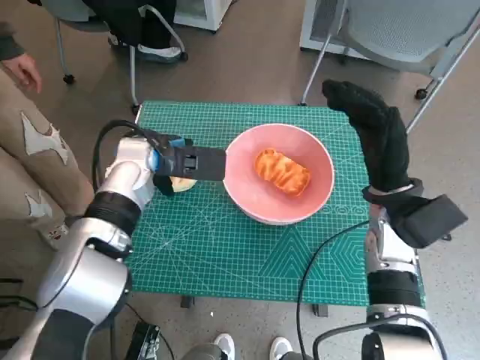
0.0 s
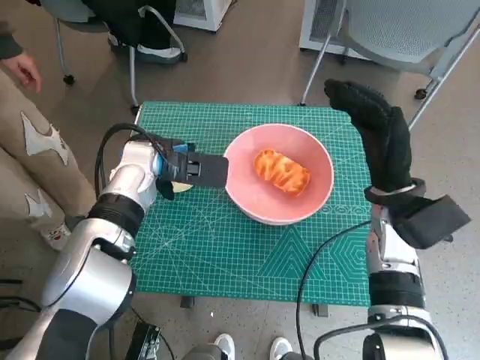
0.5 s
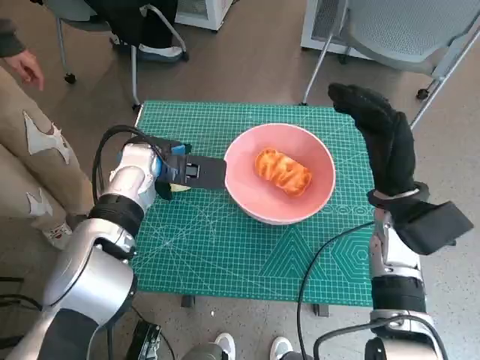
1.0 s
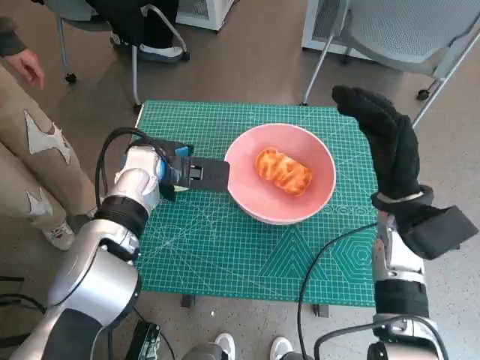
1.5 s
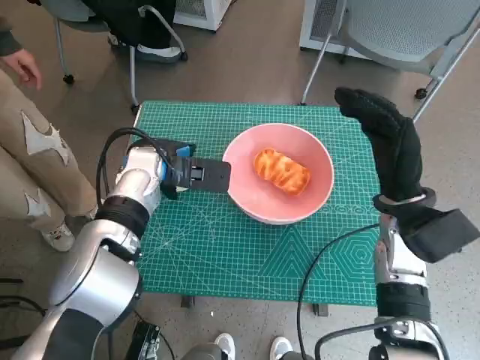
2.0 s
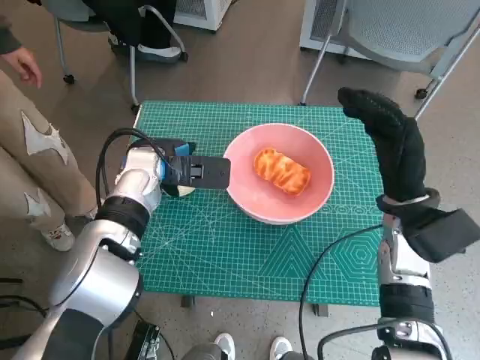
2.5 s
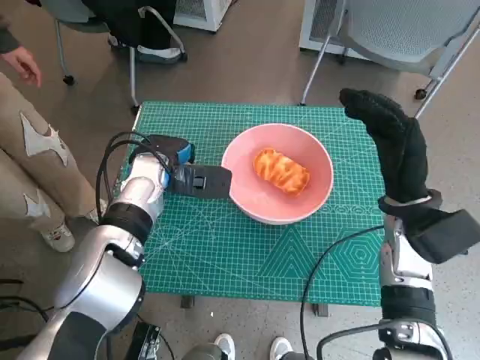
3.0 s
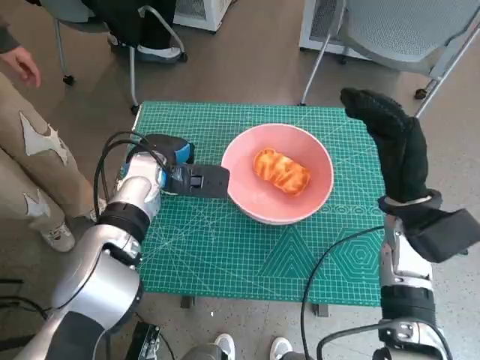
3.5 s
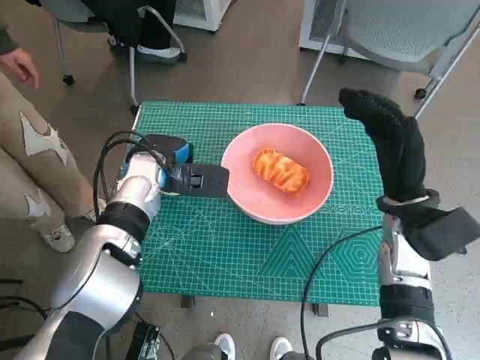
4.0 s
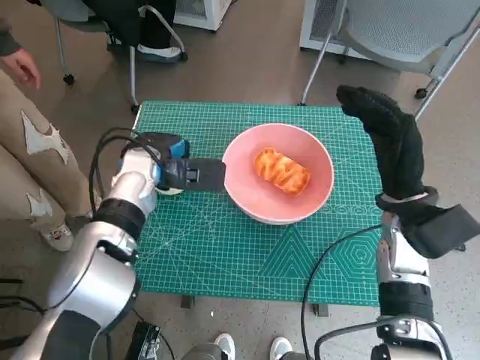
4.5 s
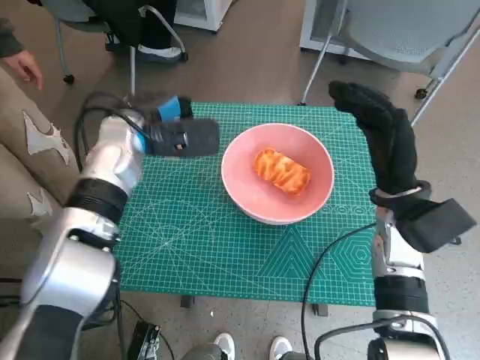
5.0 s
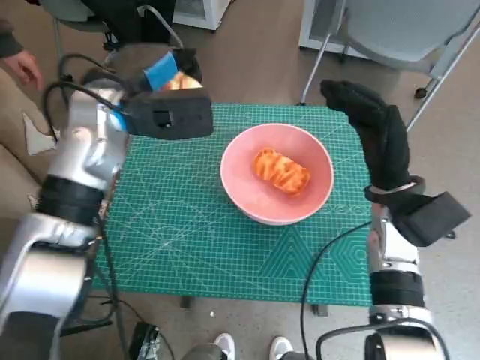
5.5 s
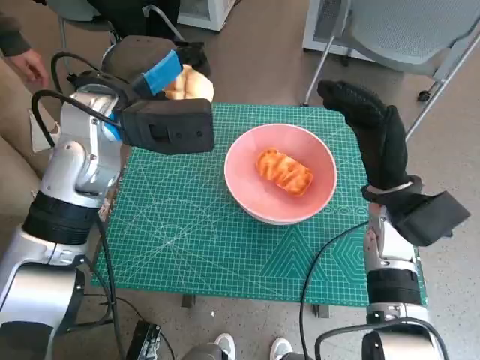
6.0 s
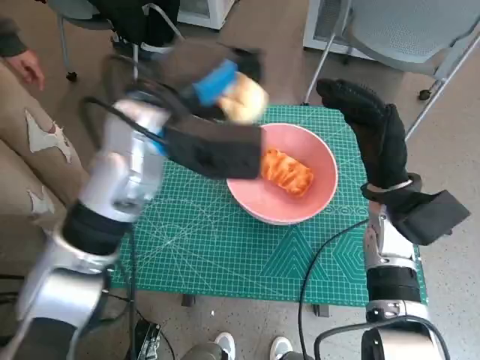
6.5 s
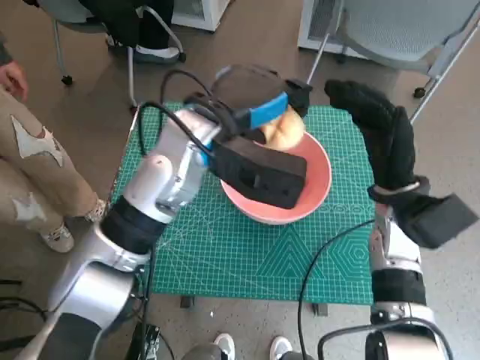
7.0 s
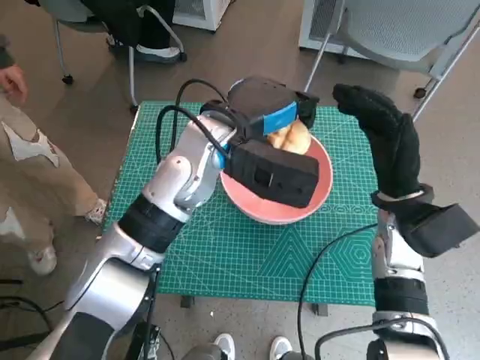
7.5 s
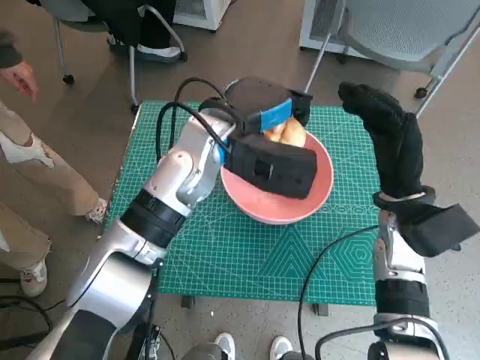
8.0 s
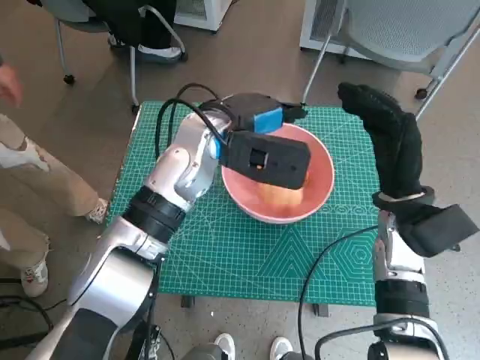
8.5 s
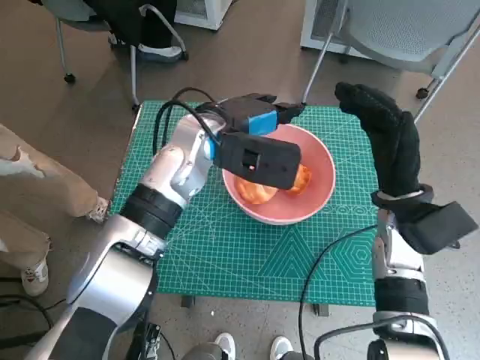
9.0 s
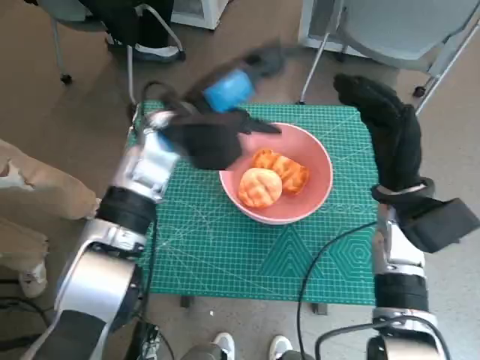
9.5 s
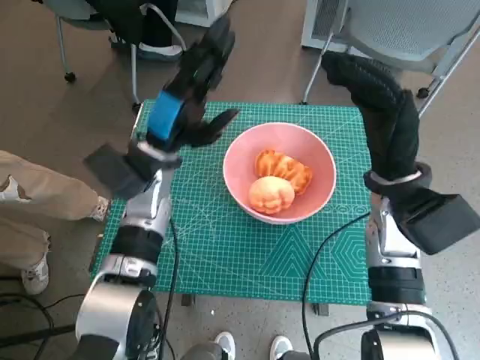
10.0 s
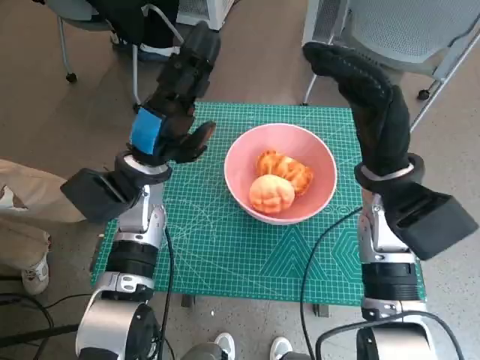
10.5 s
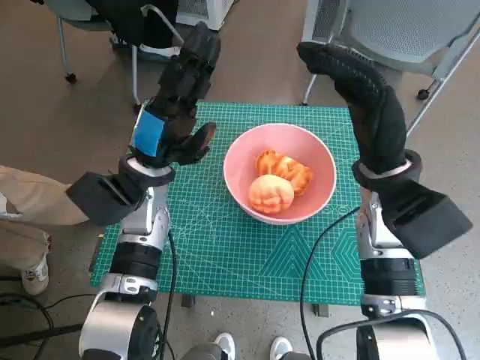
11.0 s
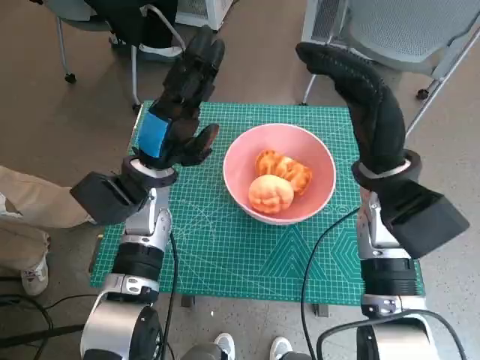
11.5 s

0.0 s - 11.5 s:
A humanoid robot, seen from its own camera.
Step, 0.0 s - 2.5 s: Grasp the round bread with left hand.
Step, 3.0 s - 8.0 s: Place the round bread in pink bowl with left hand.
0.0 s - 4.0 s: There are only small adjustments of the hands.
4.0 s - 6.0 s: The left hand is displaced upward by some 15 cm.
6.0 s - 7.5 s: The left hand heads to the right, covering roughly 10 cm.
7.5 s - 9.5 s: The left hand travels to the left by some 5 cm.
9.5 s - 11.5 s: The left hand is displaced downward by about 5 cm. Meanwhile the right hand ends up approximately 5 cm from where it was.

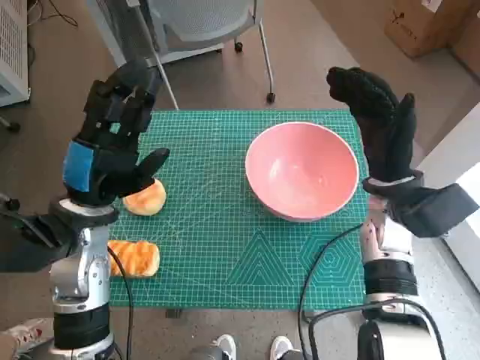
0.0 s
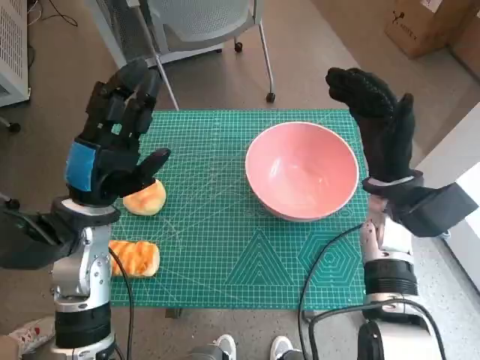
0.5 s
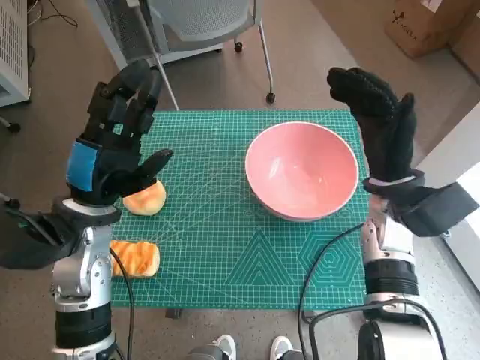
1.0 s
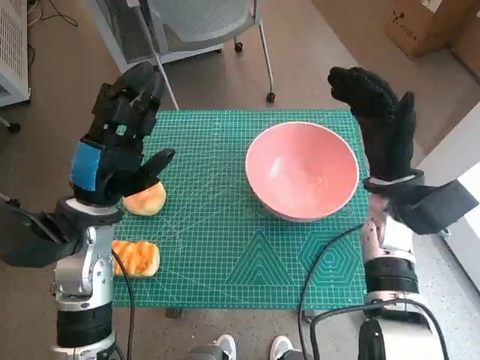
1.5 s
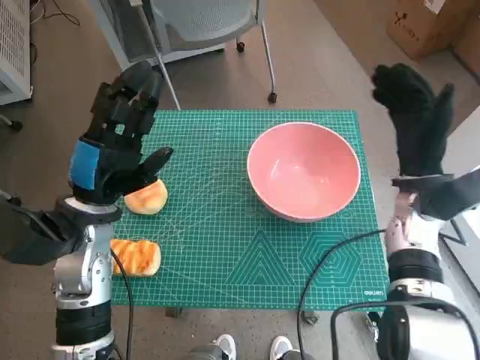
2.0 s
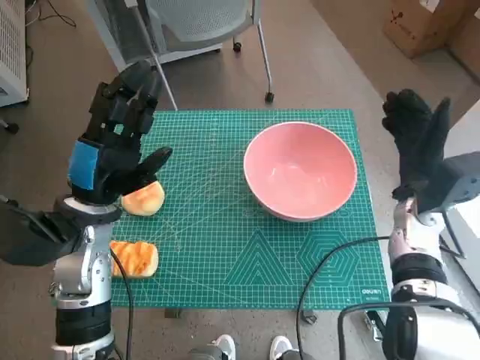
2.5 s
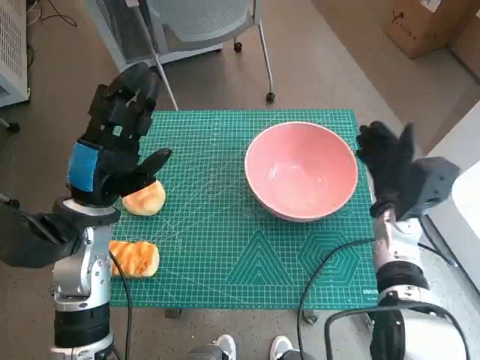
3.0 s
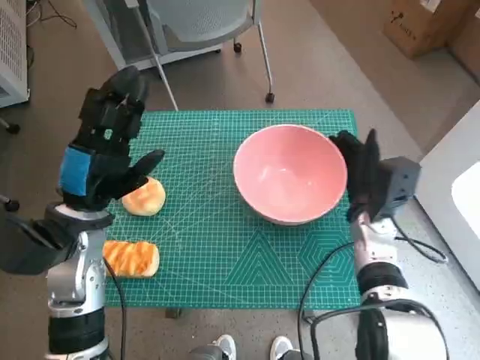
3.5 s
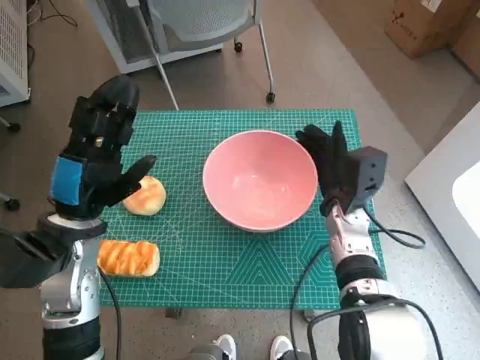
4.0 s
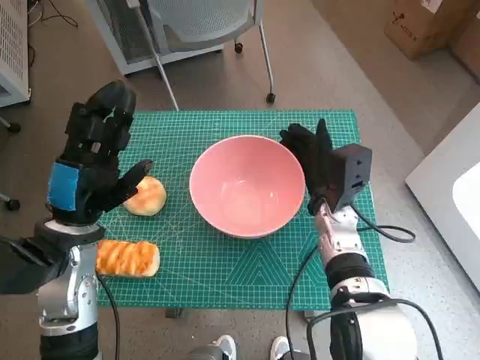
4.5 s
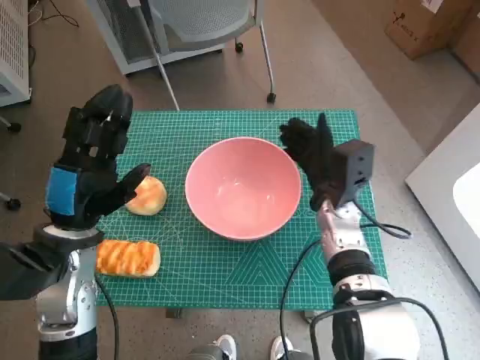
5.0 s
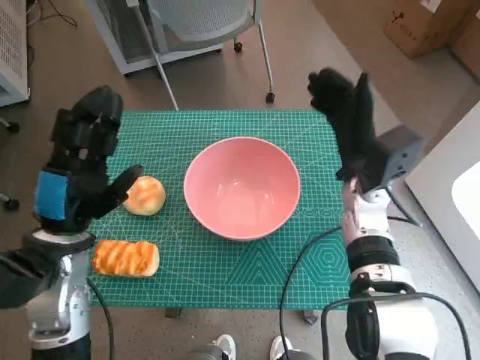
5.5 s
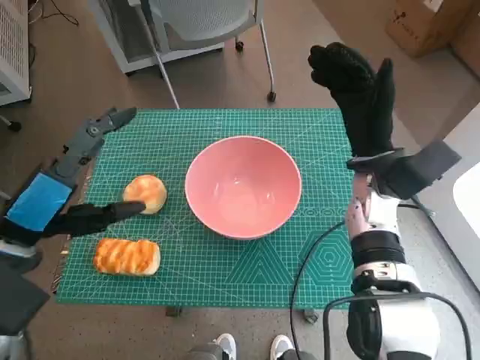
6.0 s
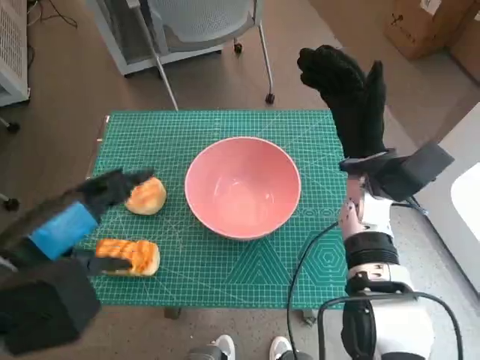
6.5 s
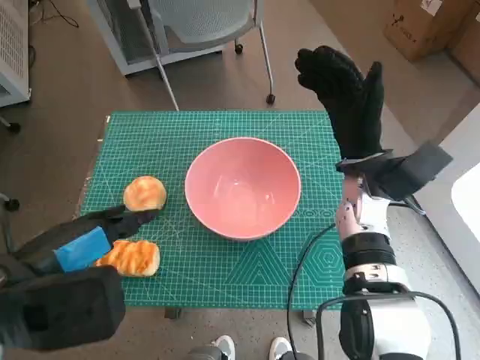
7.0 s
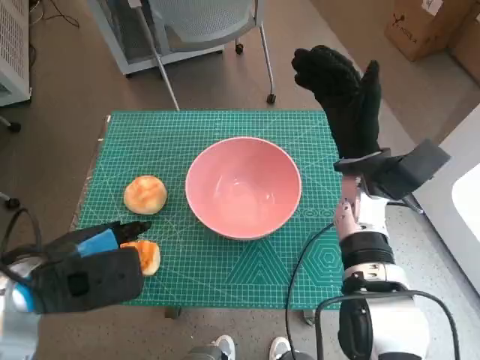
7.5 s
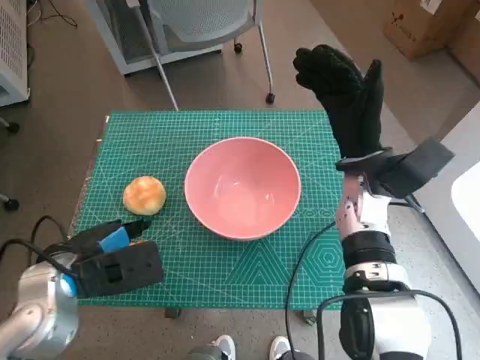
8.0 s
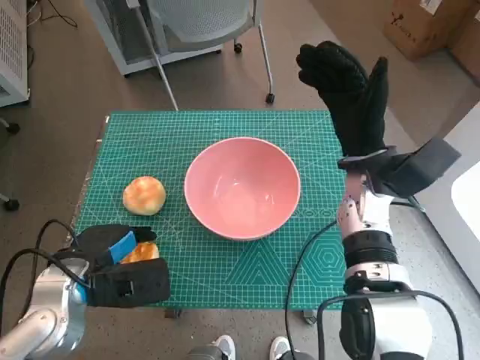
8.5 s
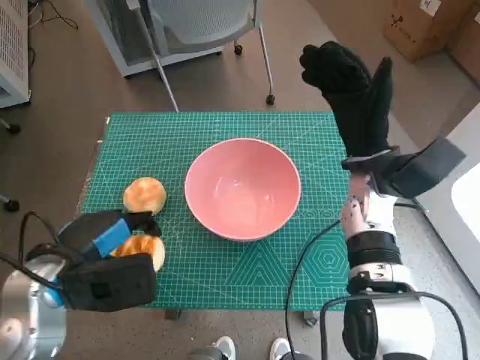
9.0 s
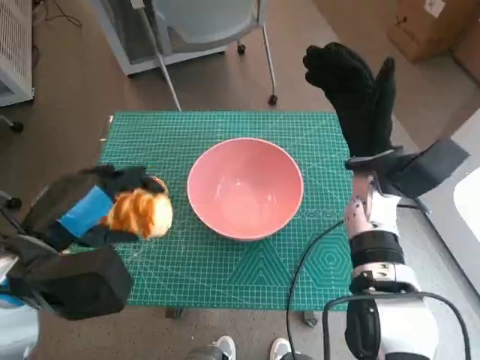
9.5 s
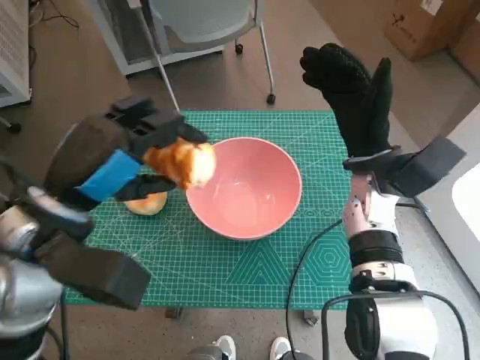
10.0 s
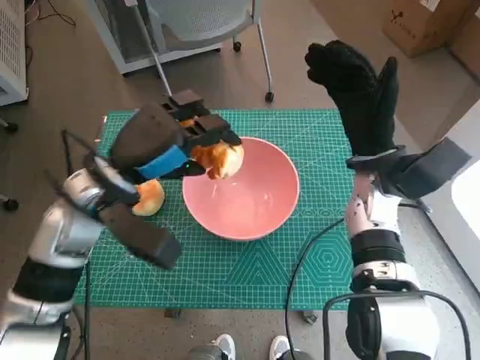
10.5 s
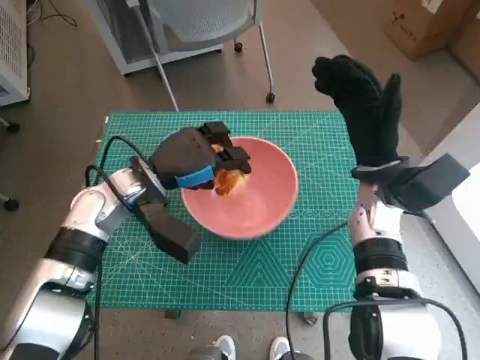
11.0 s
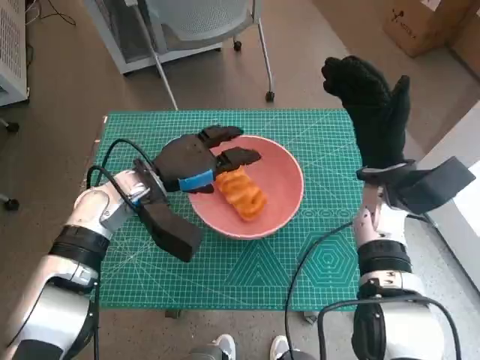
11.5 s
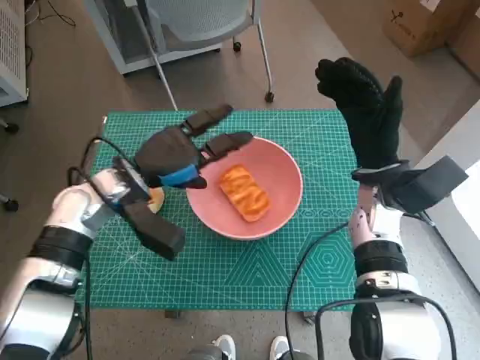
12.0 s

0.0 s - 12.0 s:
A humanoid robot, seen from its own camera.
Step, 0.0 s - 5.0 s: Move the pink bowl to the center of table with right hand.
Step, 5.5 s - 8.5 s: Grasp the long bread with left hand.
Step, 9.0 s - 11.5 s: Place the long bread in pink bowl with left hand.
2.0 s - 4.0 s: The right hand shifts about 10 cm to the left and downward.
4.0 s - 6.0 s: The left hand heads upward and backward, covering about 10 cm, while the right hand heads upward, covering roughly 10 cm.
6.0 s - 8.0 s: The left hand moves downward, some 5 cm.
8.0 s - 10.0 s: The left hand shifts approximately 10 cm upward.
10.0 s - 12.0 s: The left hand moves forward and downward, approximately 15 cm.

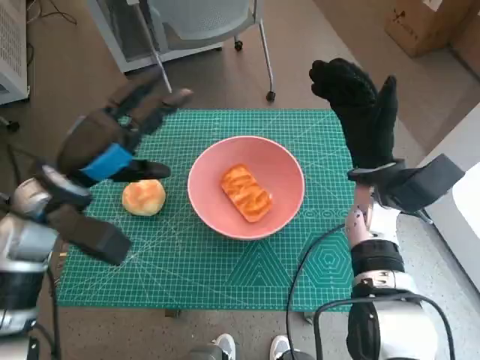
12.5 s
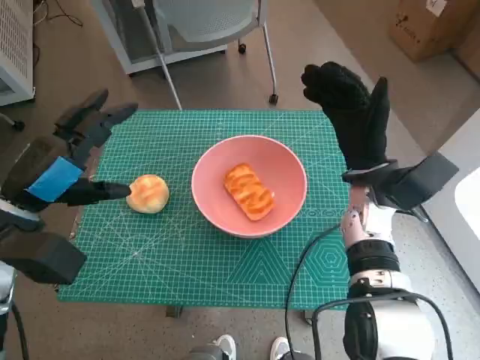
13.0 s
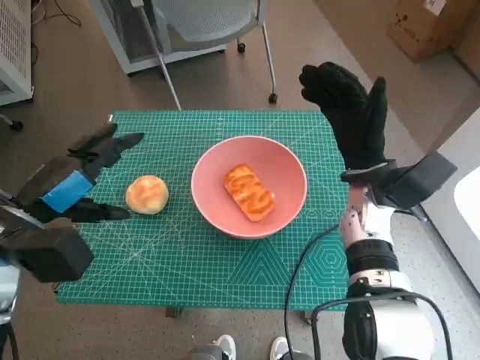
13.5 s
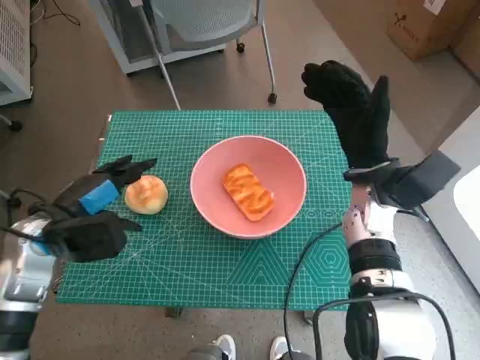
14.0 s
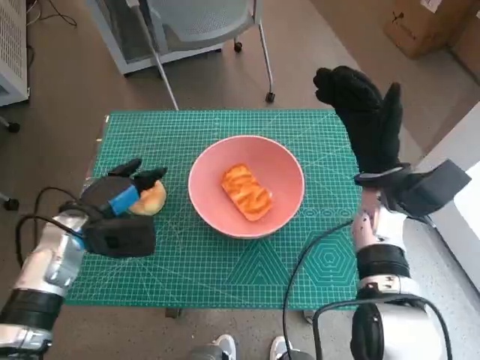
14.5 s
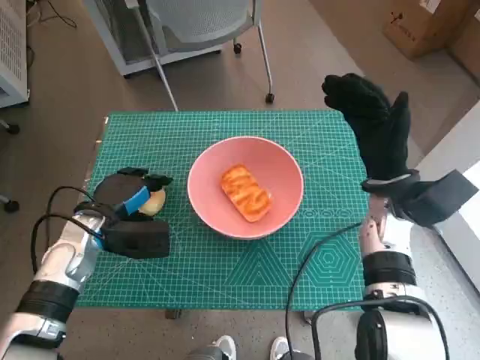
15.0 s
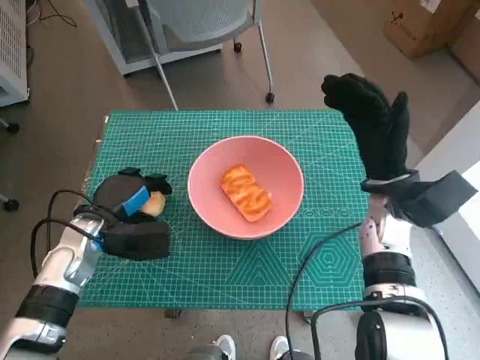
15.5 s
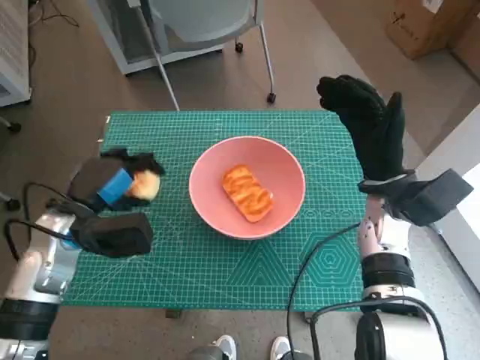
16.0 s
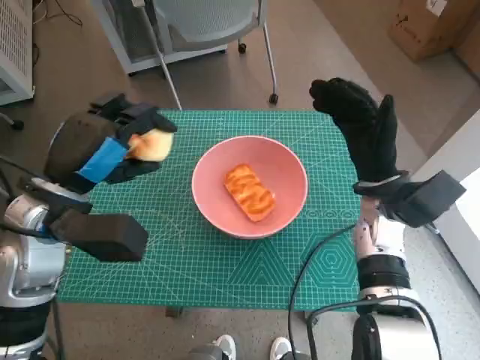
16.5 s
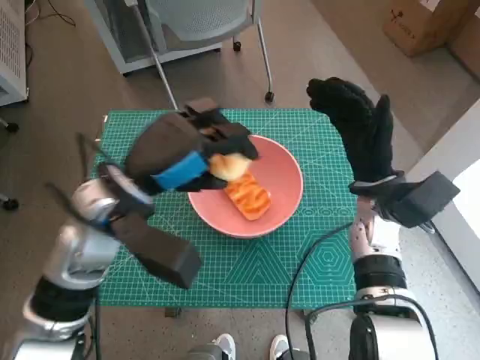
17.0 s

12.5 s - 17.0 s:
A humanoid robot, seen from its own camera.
Step, 12.5 s - 15.5 s: Grasp the round bread with left hand.
12.5 s - 14.5 s: The left hand travels downward by approximately 10 cm.
14.5 s - 17.0 s: The left hand shifts about 15 cm upward and to the right.
